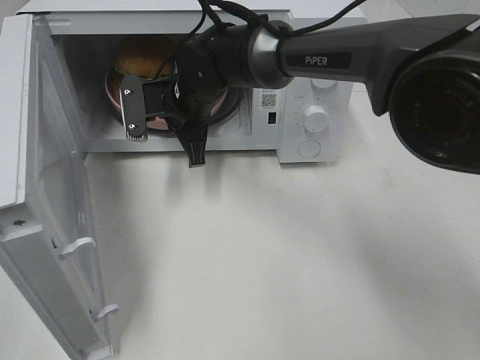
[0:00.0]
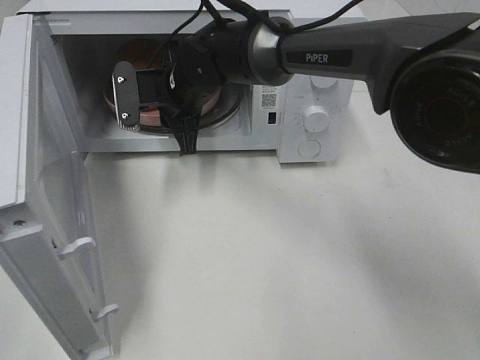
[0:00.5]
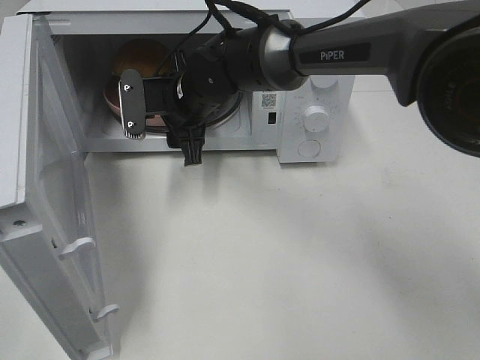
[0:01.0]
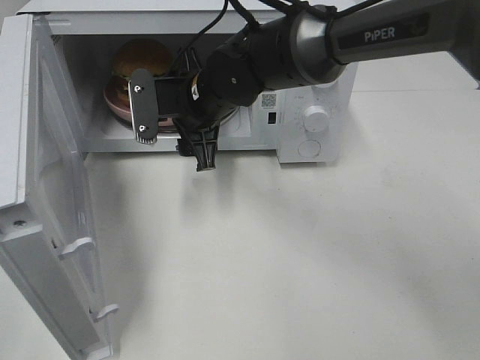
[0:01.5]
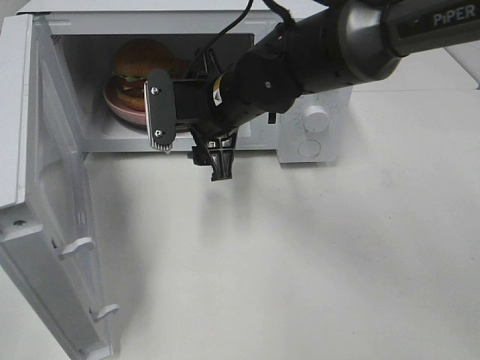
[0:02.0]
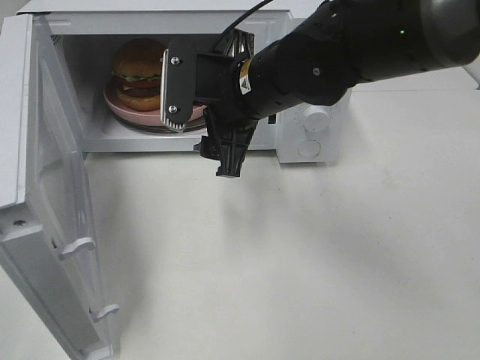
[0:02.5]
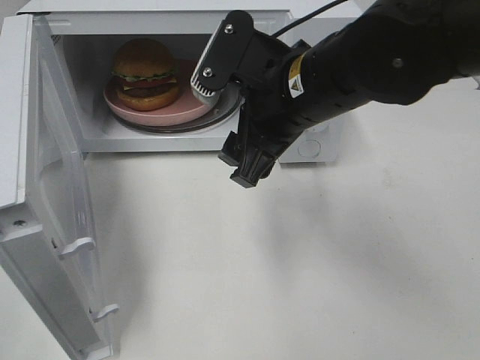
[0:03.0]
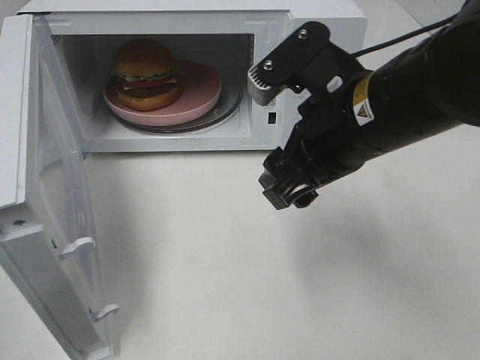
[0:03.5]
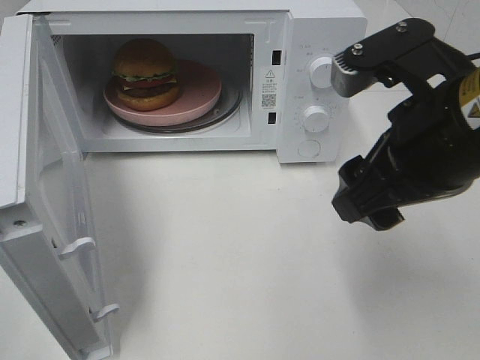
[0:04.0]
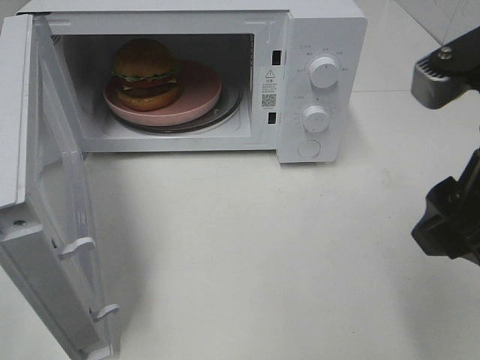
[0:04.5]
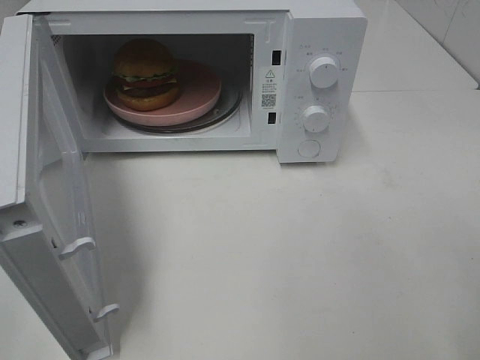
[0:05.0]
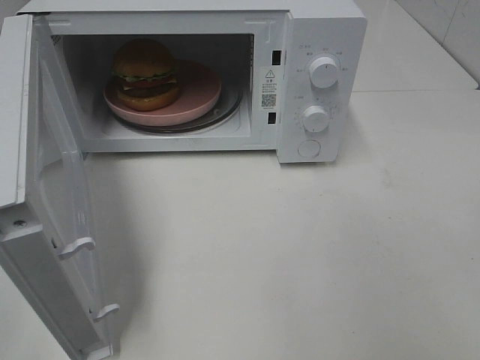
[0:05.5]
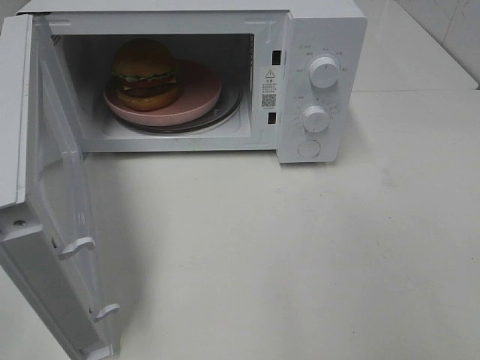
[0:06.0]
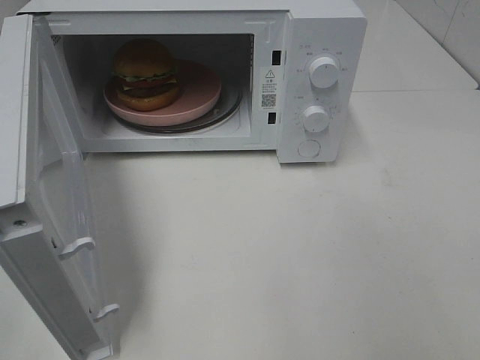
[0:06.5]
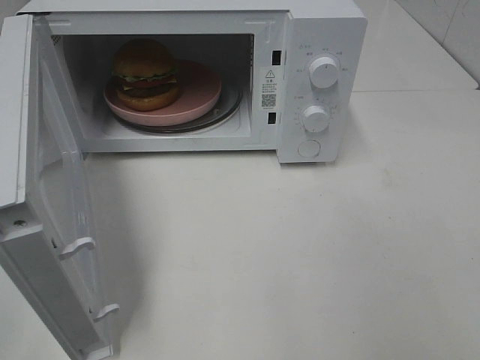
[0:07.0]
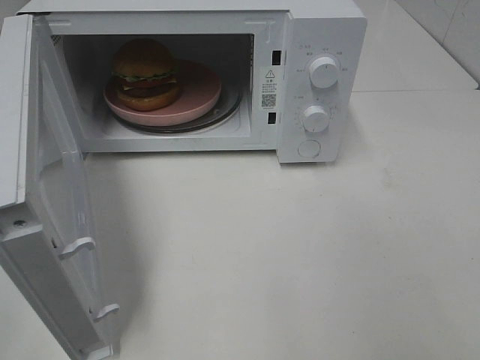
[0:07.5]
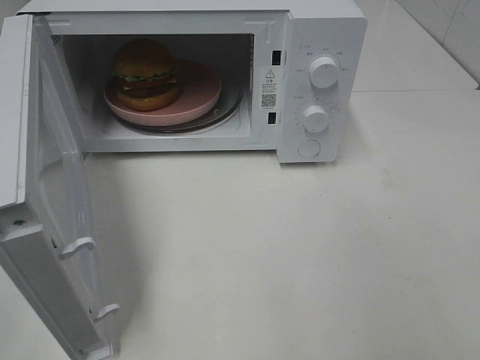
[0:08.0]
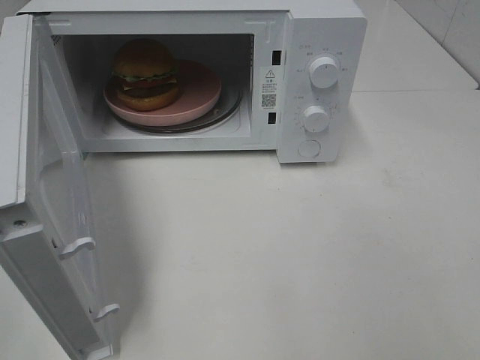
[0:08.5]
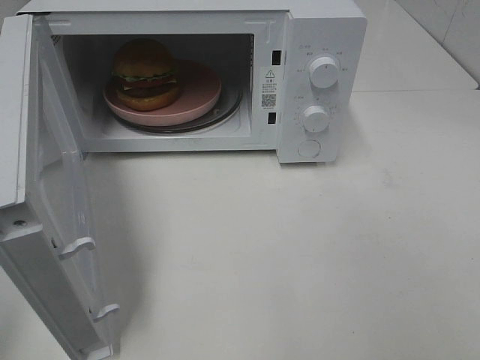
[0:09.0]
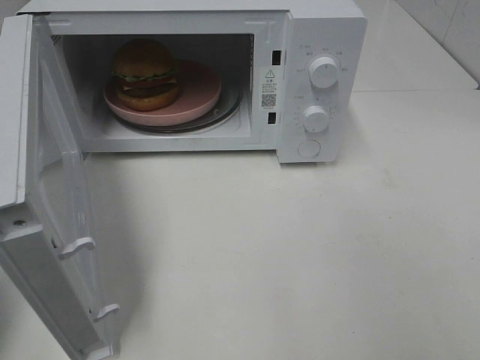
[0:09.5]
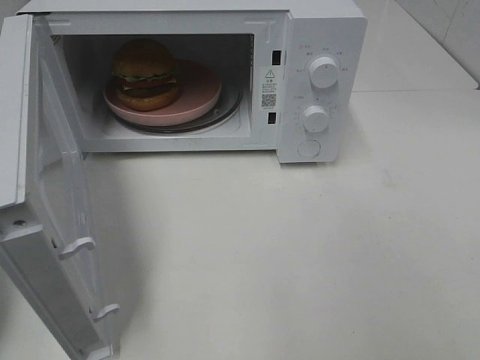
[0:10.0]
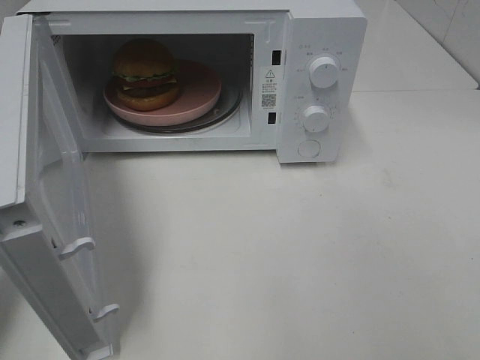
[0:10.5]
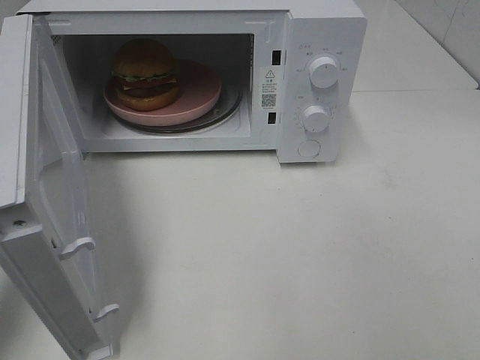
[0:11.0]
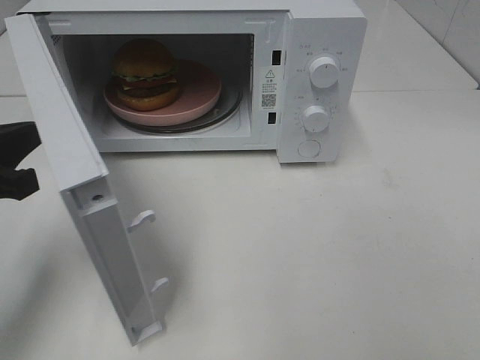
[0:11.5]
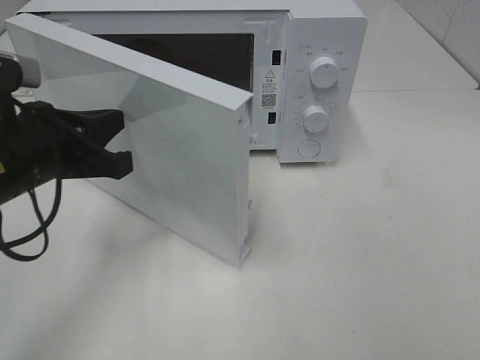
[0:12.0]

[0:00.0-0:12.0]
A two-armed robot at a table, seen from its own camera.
Task of the whole recording: Heat the burger.
0:00.0 to 0:02.0: The right gripper shifts some 10 cm backward and to the right, and opens up.
0:02.0 to 0:04.0: The right gripper shifts about 25 cm backward, to the right and upward.
0:04.0 to 0:06.0: The right gripper travels backward and to the right by some 25 cm.
0:10.0 to 0:12.0: The left gripper goes about 15 cm to the right and forward.

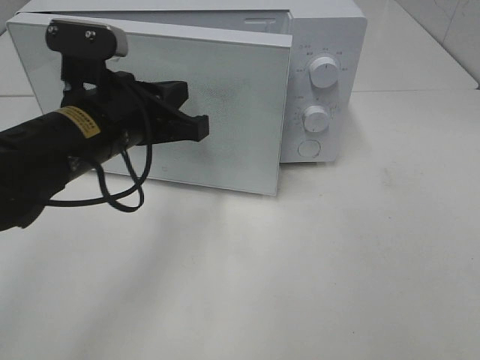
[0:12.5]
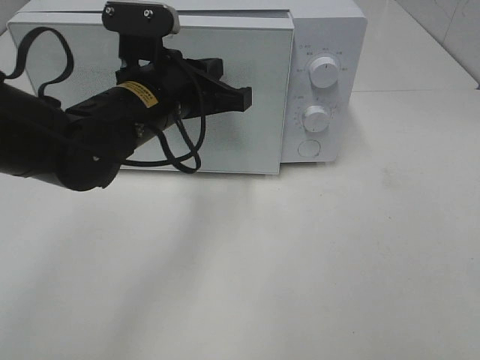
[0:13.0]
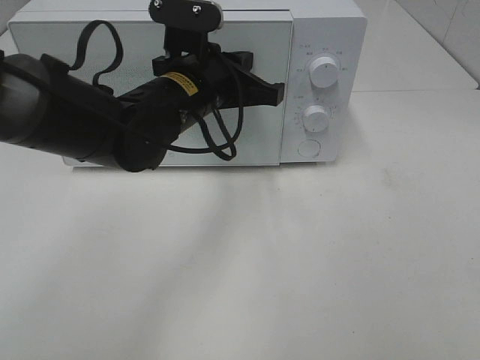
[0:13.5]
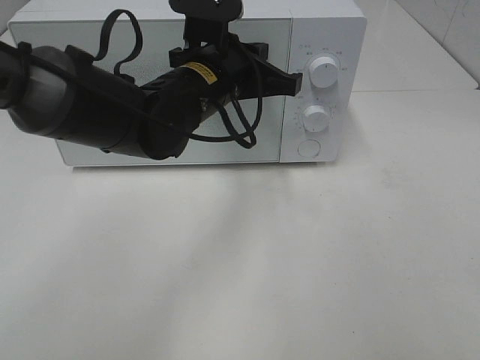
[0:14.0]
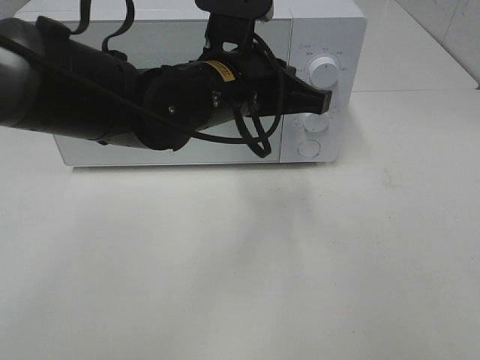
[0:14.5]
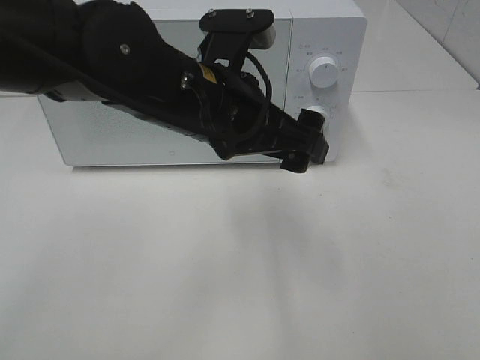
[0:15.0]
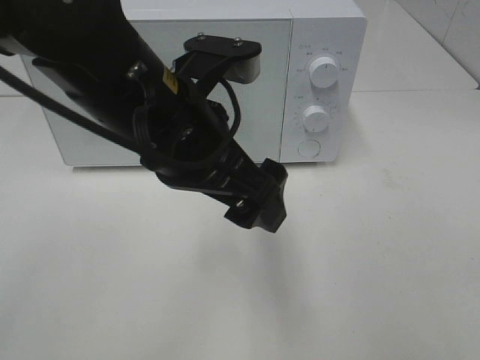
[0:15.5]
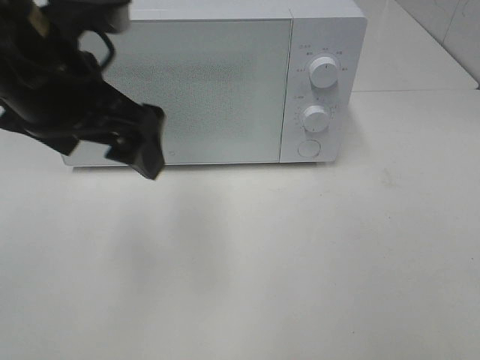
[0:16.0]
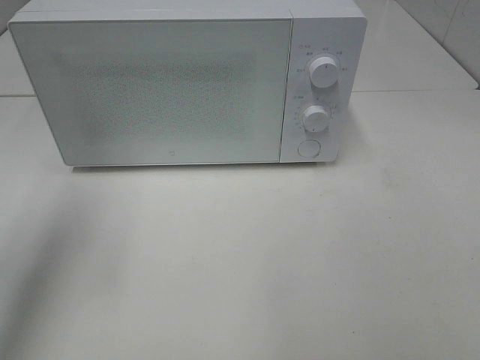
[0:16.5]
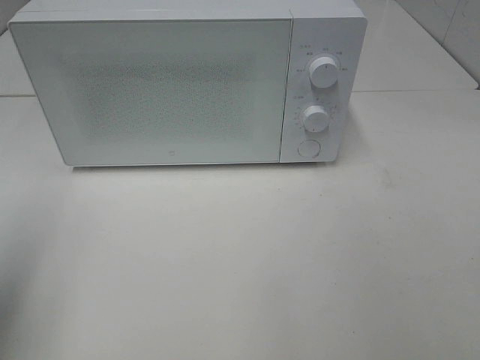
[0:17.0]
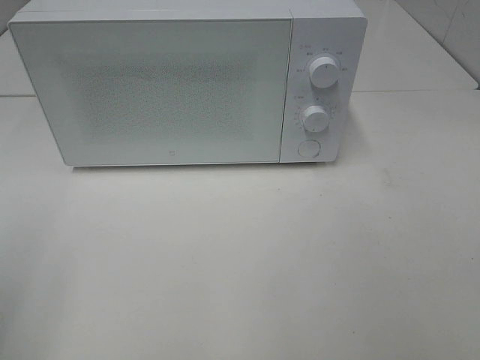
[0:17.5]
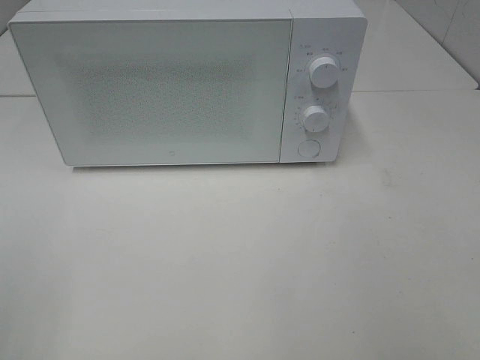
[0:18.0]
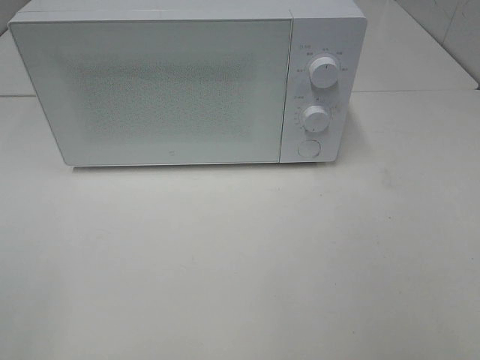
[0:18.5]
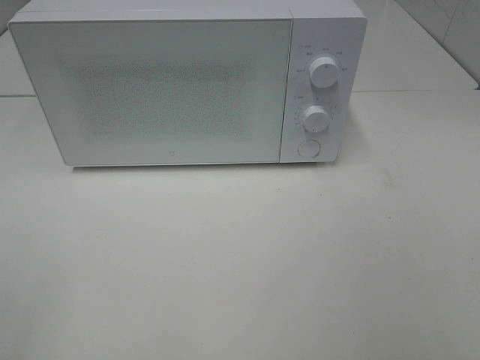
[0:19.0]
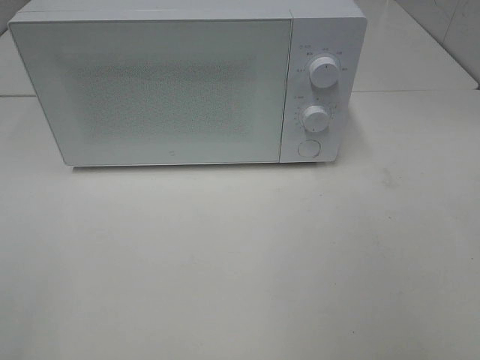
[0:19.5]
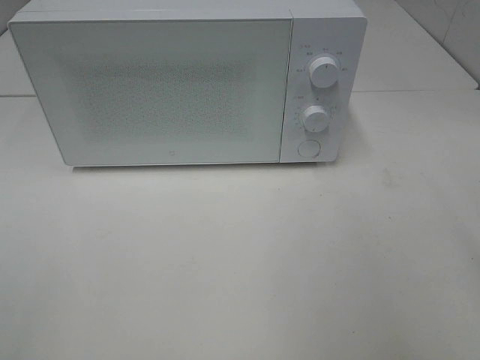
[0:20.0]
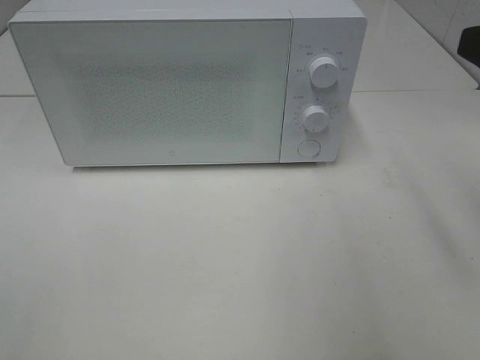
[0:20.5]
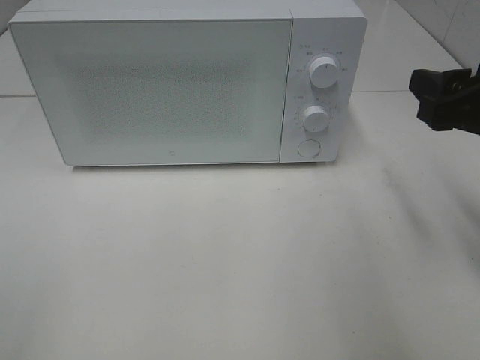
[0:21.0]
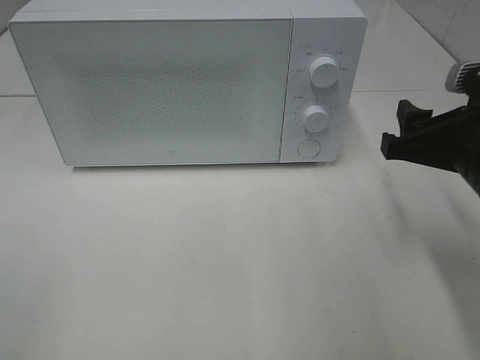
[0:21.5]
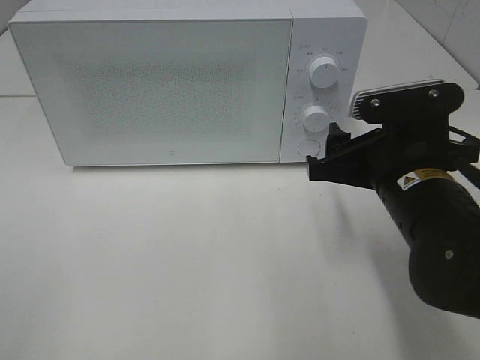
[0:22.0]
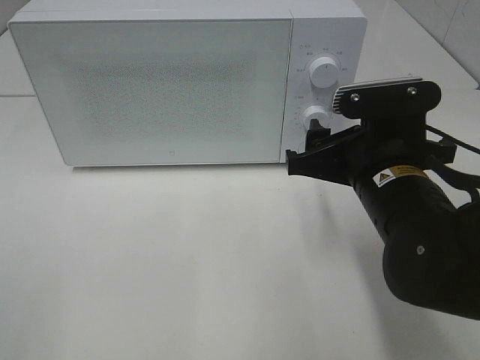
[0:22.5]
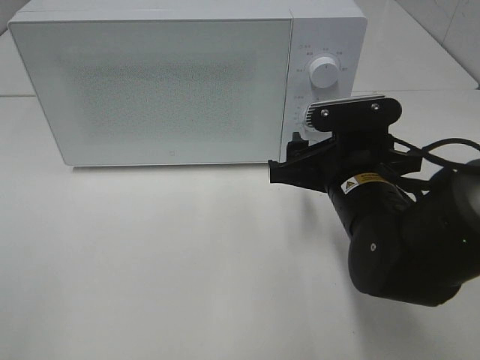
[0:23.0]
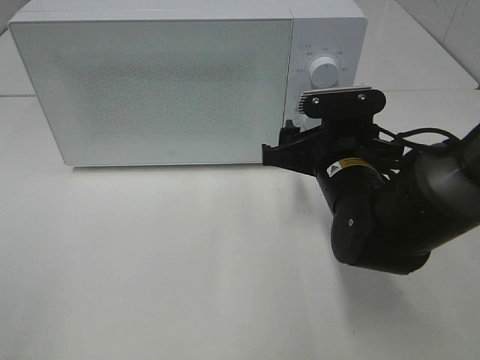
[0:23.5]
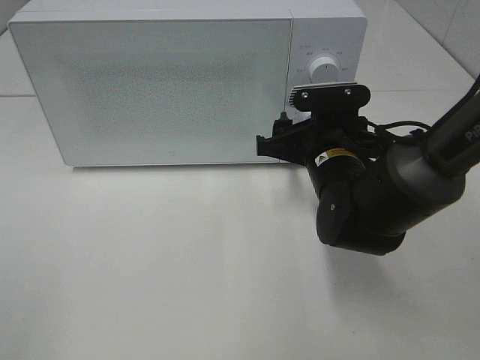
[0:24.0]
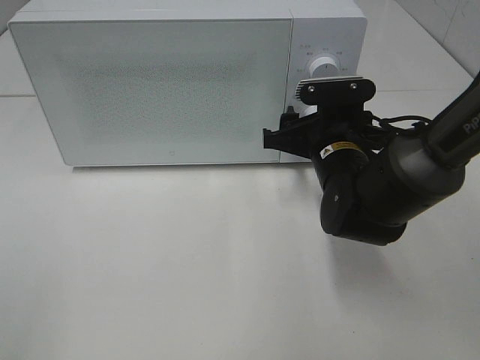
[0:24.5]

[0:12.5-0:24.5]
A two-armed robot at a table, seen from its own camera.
Task of the whole recording: Heat the burger.
0:12.5 to 0:14.5: The left gripper moves to the right, approximately 10 cm.
0:14.5 to 0:16.5: The left gripper shifts about 30 cm to the left and upward, and opens its fingers.
0:16.5 to 0:18.5: The left gripper travels backward by roughly 25 cm.
0:18.5 to 0:20.5: The right gripper shifts roughly 20 cm forward.
0:20.5 to 0:22.5: The right gripper heads downward and to the left, covering some 20 cm.
0:22.5 to 0:24.5: The right gripper shifts approximately 10 cm forward and downward.

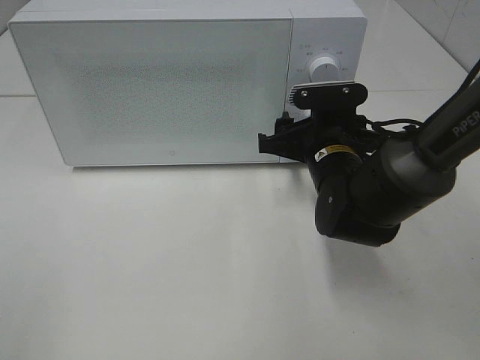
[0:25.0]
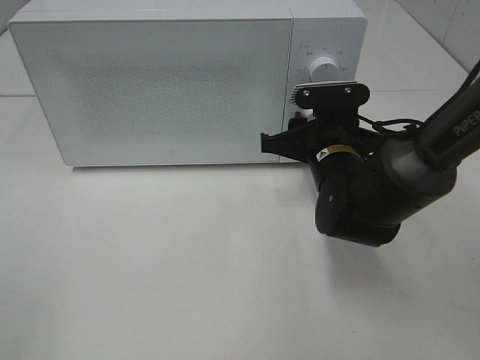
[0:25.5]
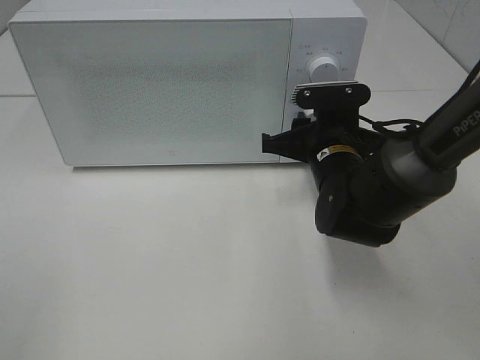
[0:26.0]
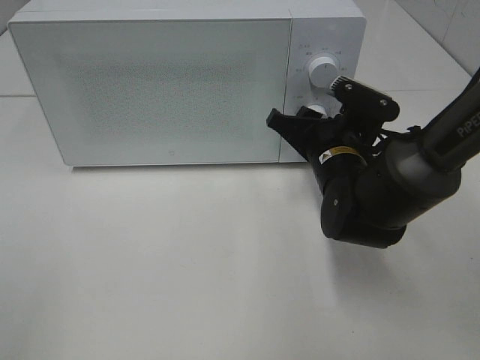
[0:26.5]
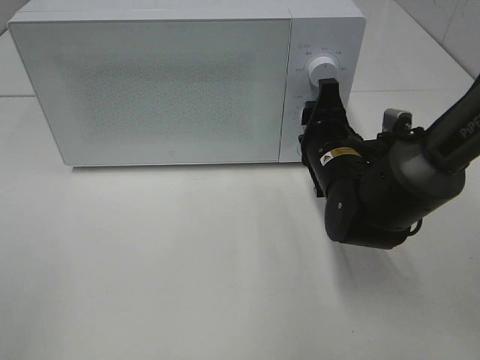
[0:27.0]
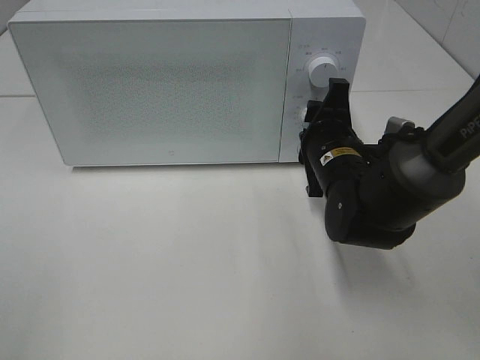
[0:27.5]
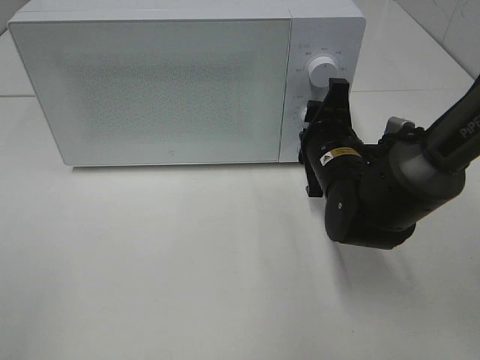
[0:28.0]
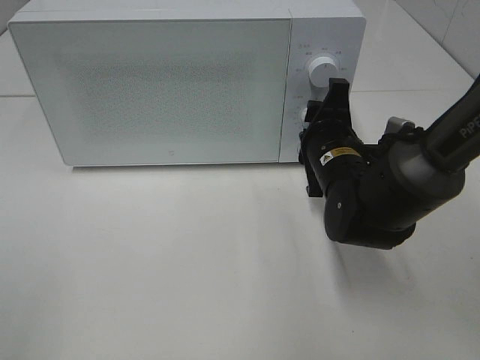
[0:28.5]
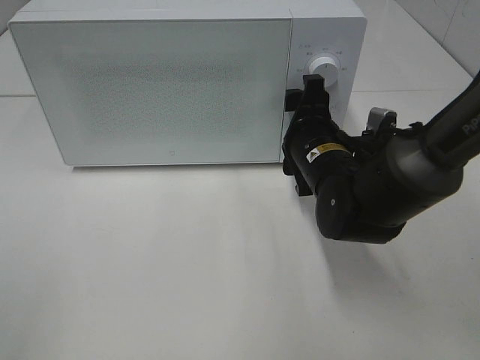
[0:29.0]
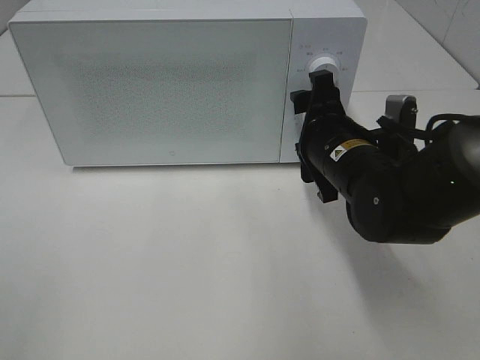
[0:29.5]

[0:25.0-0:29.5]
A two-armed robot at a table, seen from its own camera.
Task of the whole recording: Heat the burger.
Step, 0:25.0 to 0:28.5: Right hand: twist timer button.
0:27.0 to 0:29.5: There are only small adjustments of the grippers.
